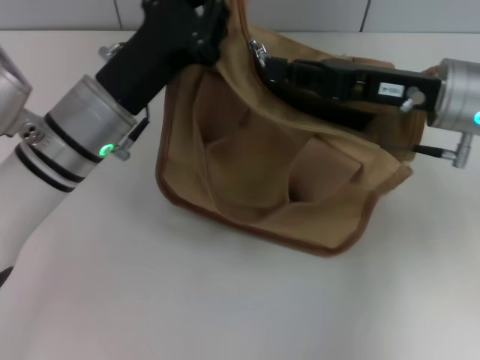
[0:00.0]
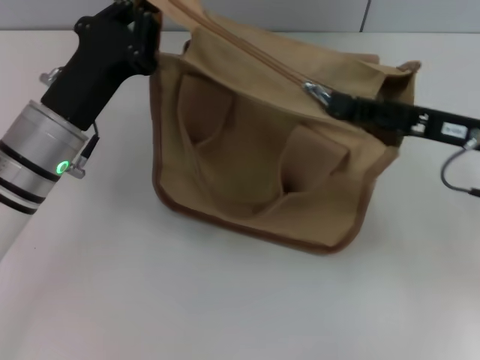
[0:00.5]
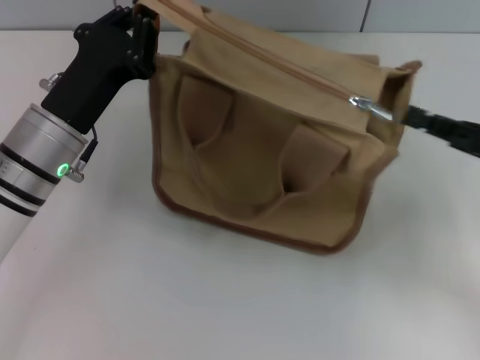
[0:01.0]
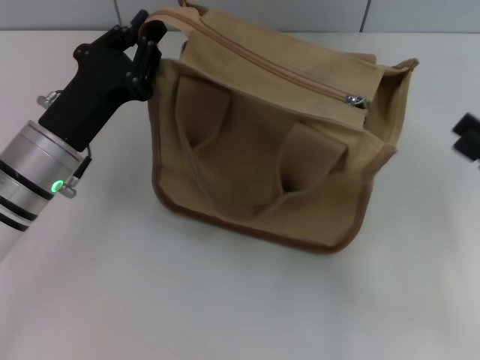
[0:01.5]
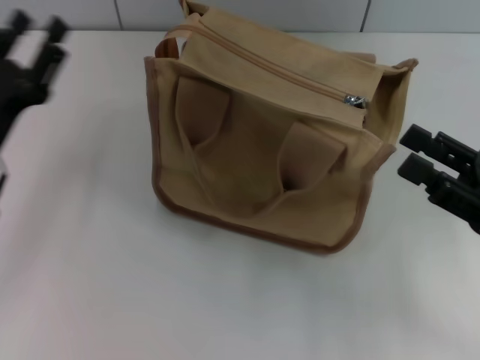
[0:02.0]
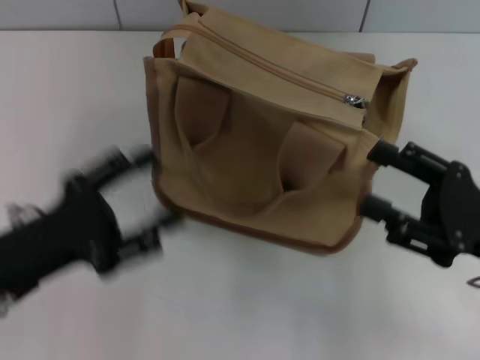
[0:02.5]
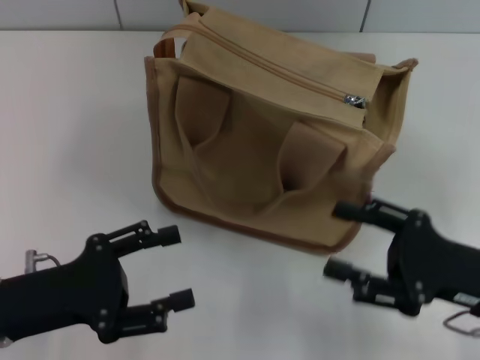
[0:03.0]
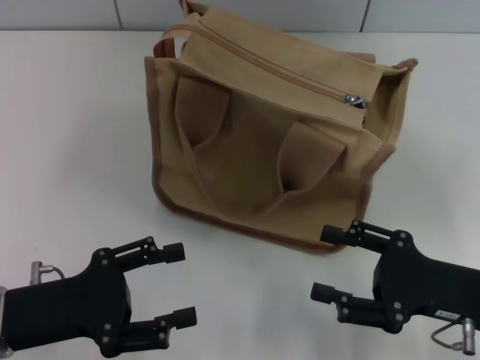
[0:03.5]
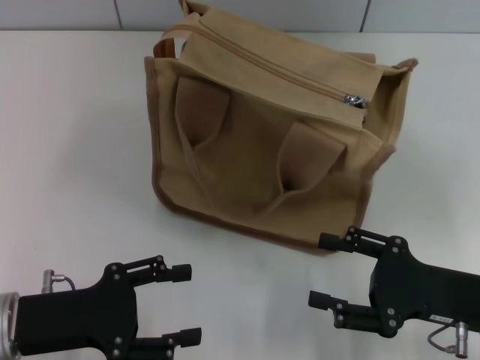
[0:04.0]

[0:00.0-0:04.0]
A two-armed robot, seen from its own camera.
Step, 0:01.0 to 0:01.5: Grab the zipper with your left hand.
0:00.0 to 0:02.0: The right gripper travels backward, to the right and downward by roughly 15 cm, and opens; the left gripper moves to the left and backward, some 10 cm, and opens its fingers.
0:02.0 to 0:04.0: The left gripper moves backward, roughly 10 cm, and opens its fingers, while the right gripper moves some 5 cm.
